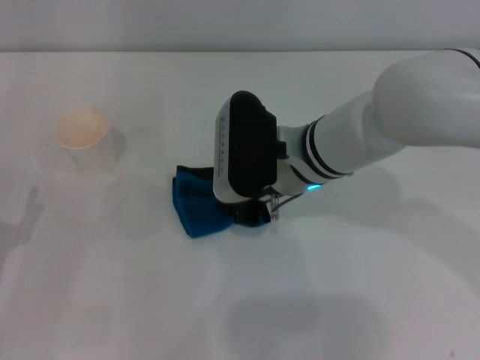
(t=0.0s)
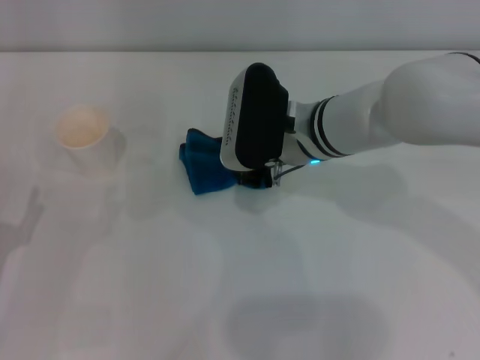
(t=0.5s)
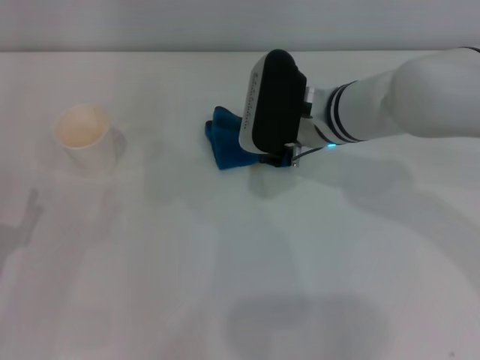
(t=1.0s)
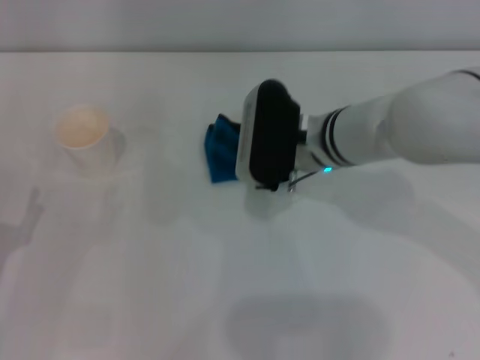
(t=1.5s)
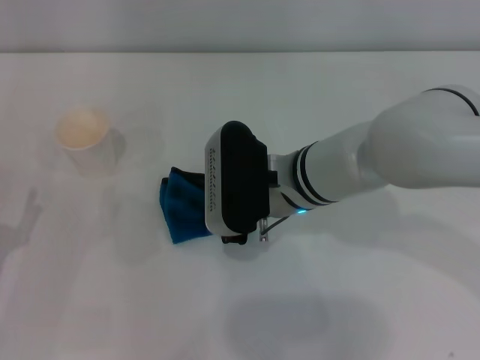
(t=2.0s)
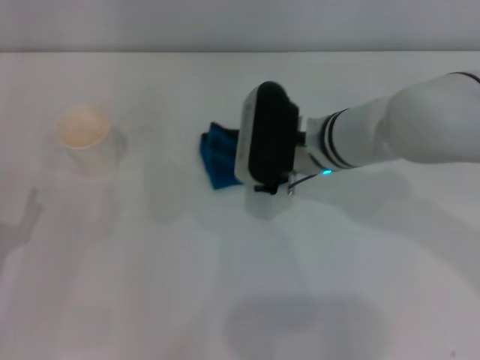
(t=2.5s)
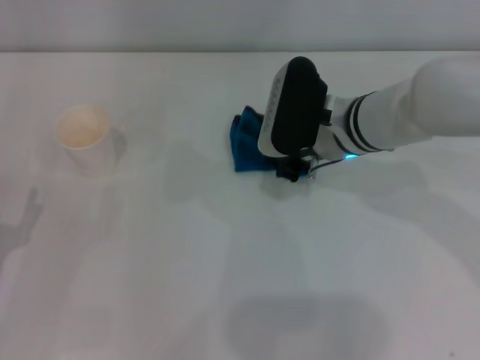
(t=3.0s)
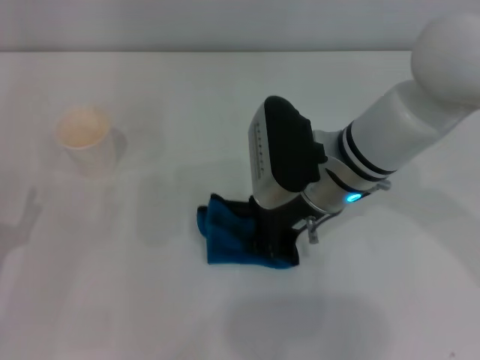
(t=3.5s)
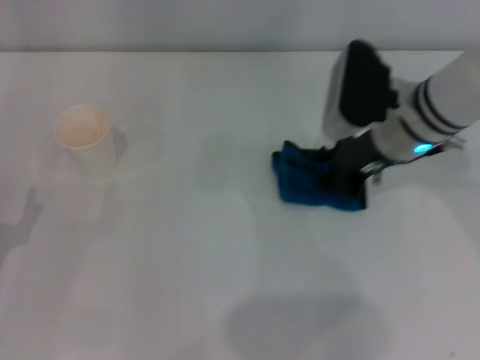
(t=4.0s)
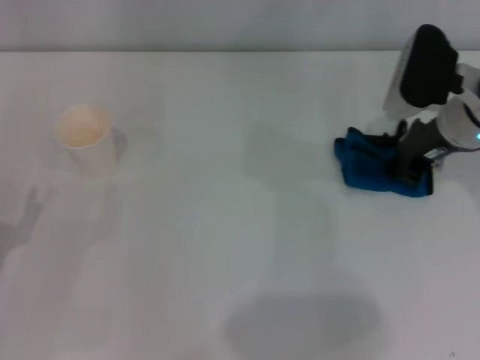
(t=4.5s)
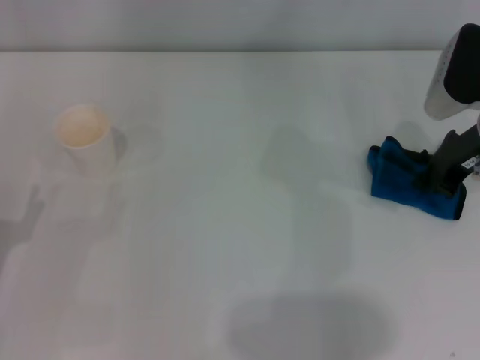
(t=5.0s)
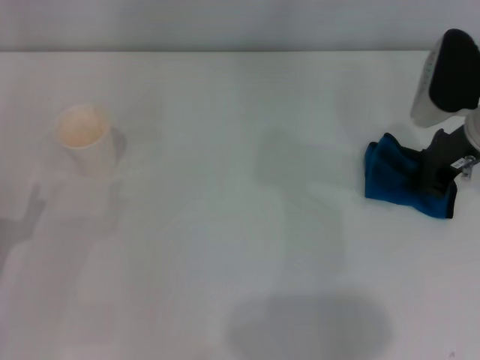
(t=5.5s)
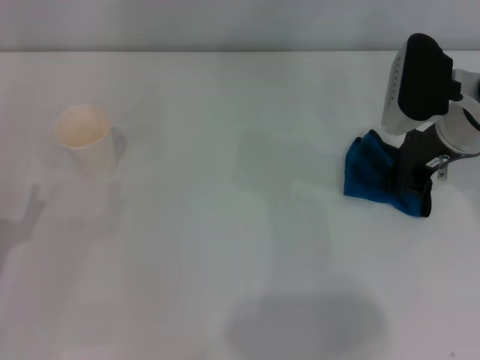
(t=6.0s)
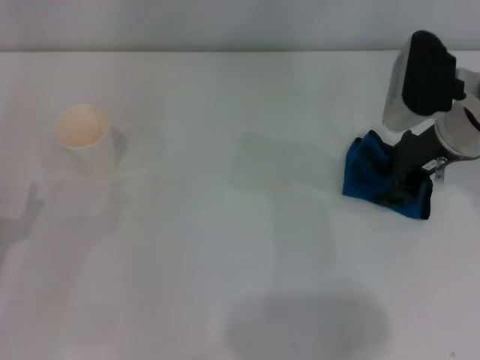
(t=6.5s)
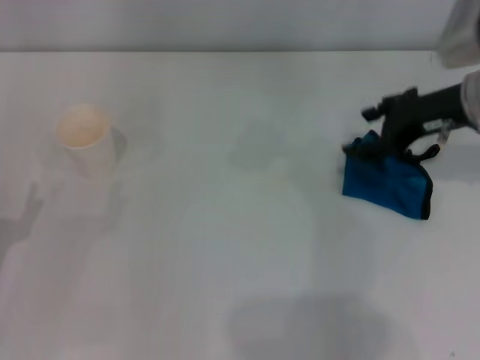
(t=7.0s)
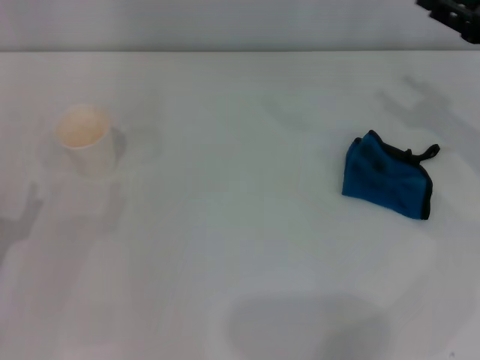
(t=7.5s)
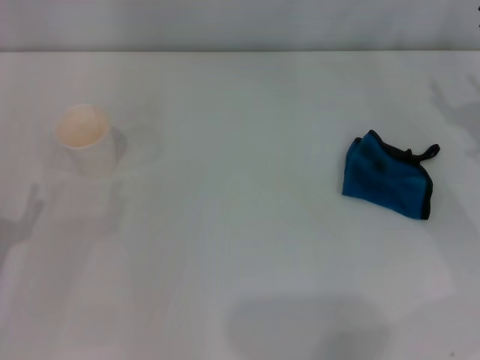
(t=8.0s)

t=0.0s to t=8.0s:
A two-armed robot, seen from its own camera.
Step, t=0.0s to t=5.5s: Wipe the stains off the table with the right gripper.
t=0.0s to t=2.0s: The grippers stay close to where they were, moving slightly.
t=2.0s to t=4.0s: The right gripper shifts some 15 cm to the right and forward.
t=6.0s to t=8.0s: The right gripper shifts about 15 cm to the right and backward, and opens up.
